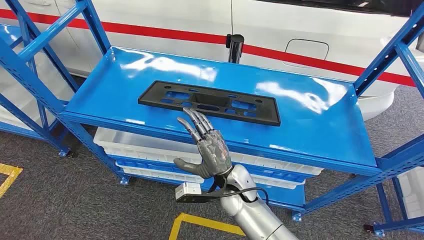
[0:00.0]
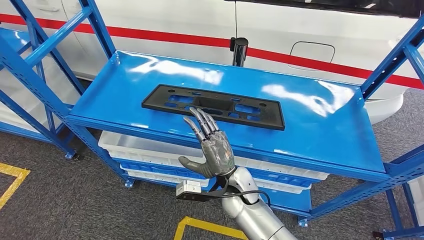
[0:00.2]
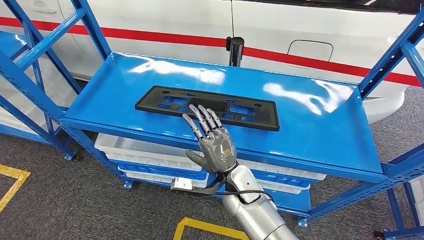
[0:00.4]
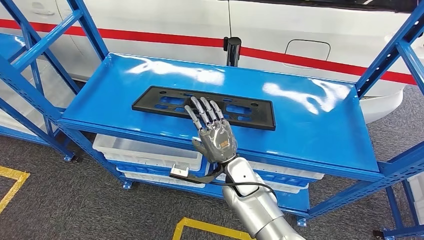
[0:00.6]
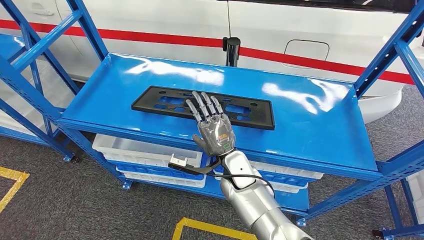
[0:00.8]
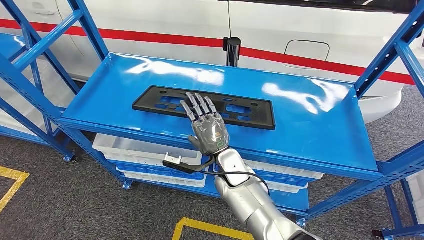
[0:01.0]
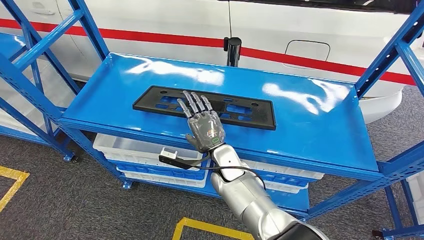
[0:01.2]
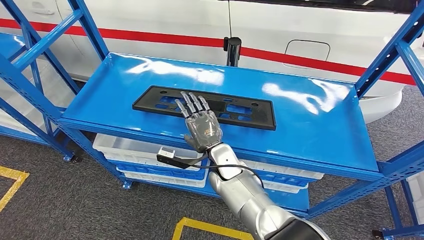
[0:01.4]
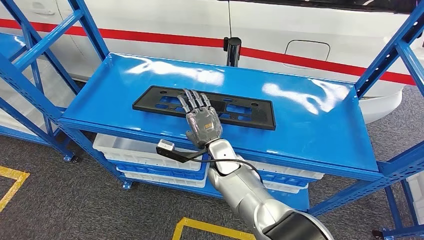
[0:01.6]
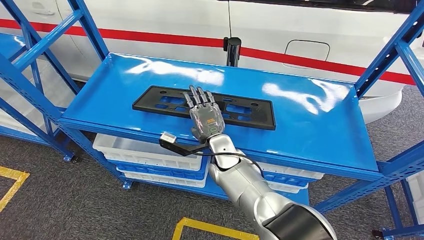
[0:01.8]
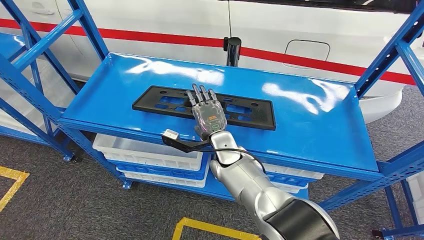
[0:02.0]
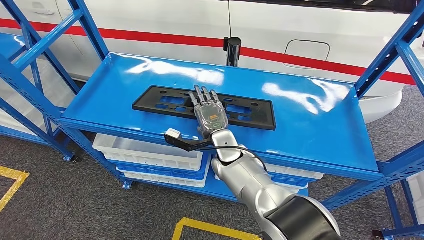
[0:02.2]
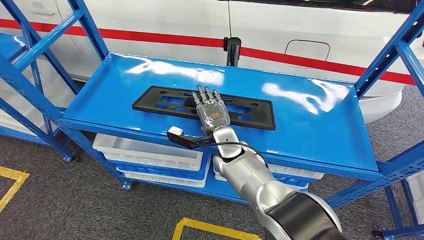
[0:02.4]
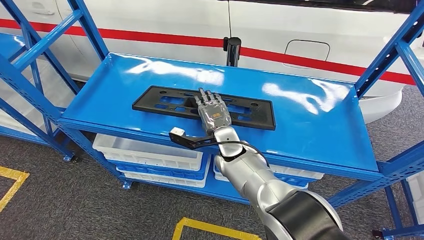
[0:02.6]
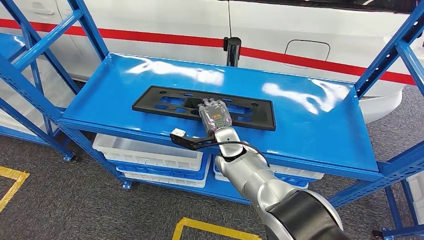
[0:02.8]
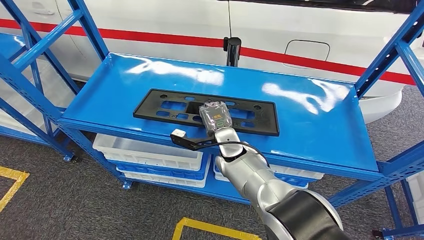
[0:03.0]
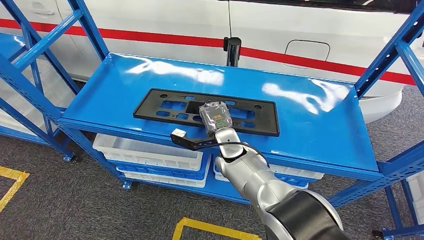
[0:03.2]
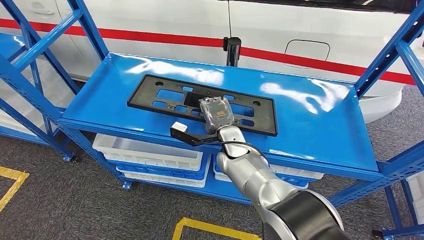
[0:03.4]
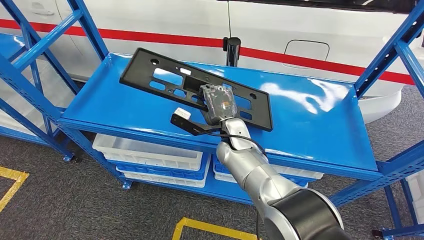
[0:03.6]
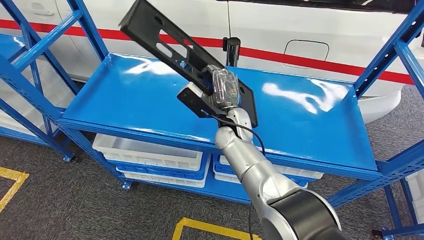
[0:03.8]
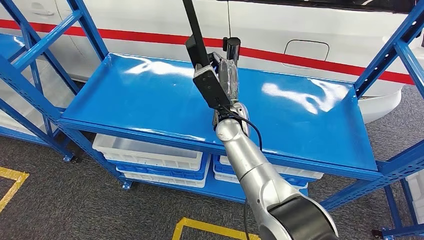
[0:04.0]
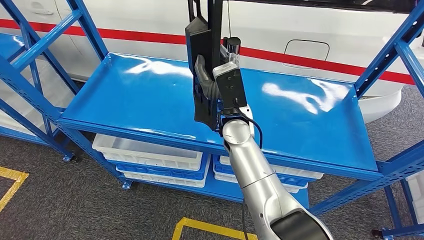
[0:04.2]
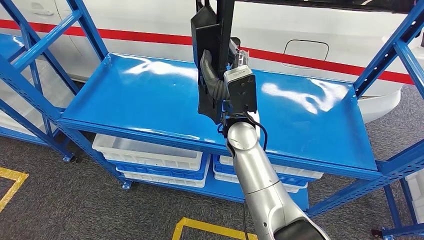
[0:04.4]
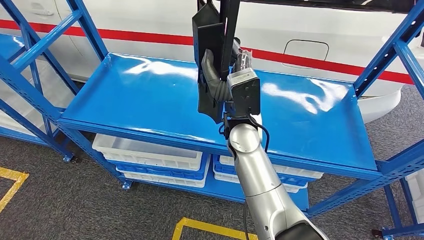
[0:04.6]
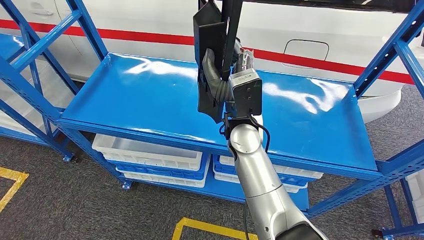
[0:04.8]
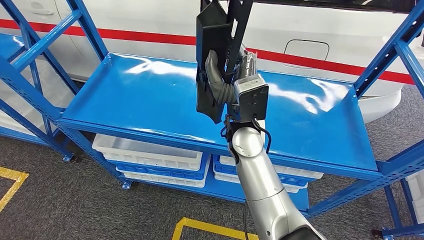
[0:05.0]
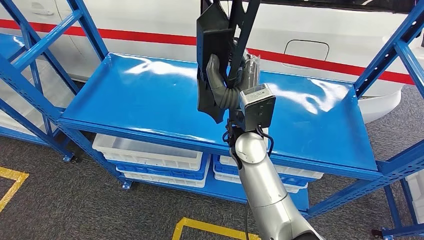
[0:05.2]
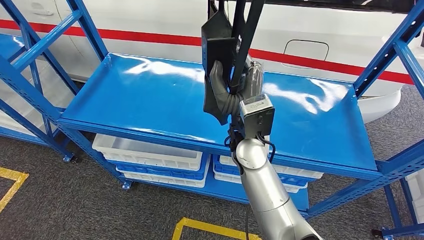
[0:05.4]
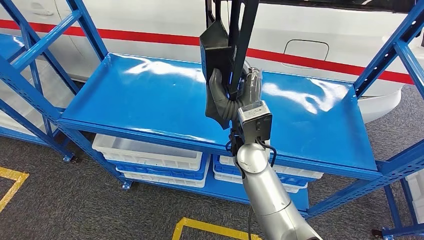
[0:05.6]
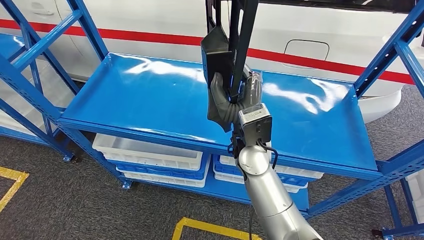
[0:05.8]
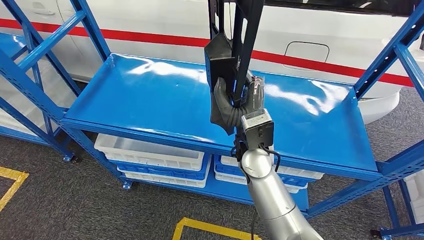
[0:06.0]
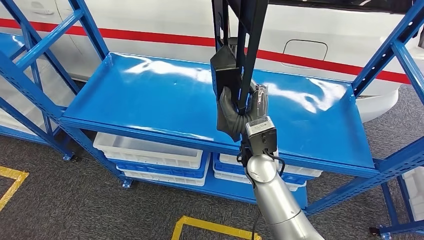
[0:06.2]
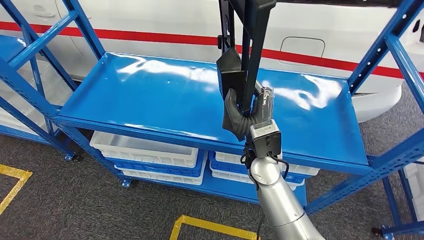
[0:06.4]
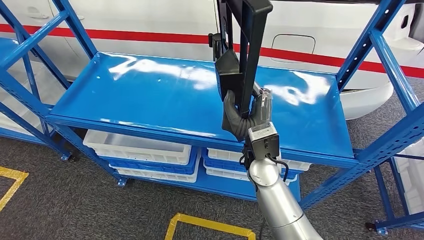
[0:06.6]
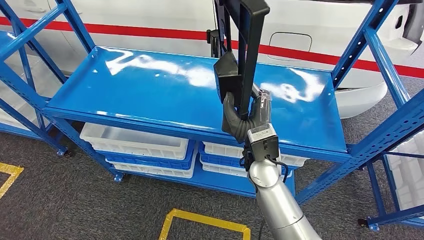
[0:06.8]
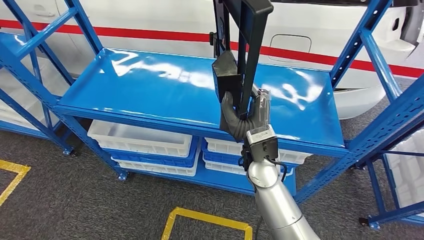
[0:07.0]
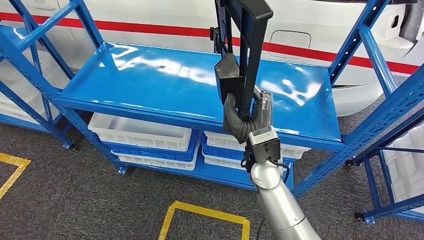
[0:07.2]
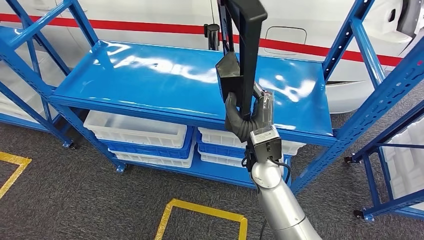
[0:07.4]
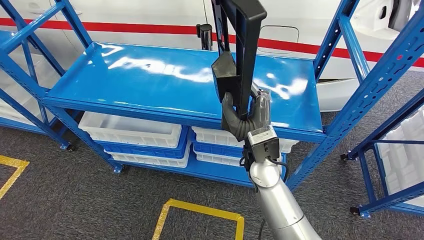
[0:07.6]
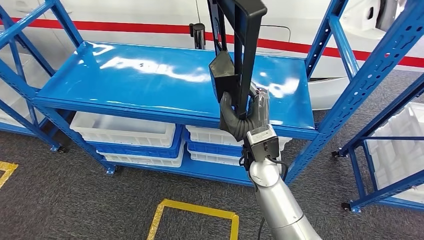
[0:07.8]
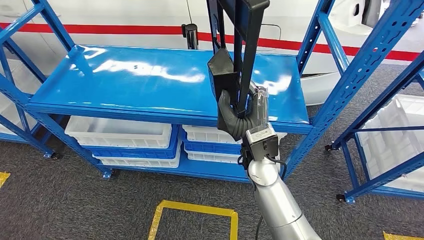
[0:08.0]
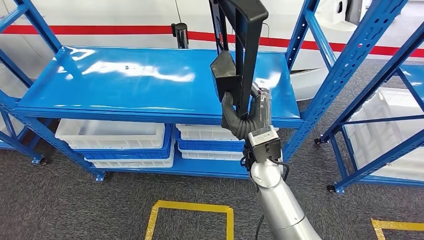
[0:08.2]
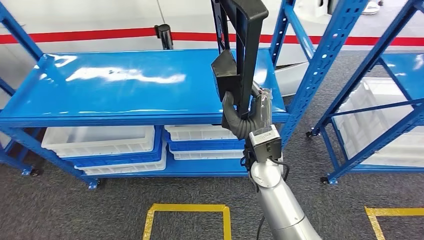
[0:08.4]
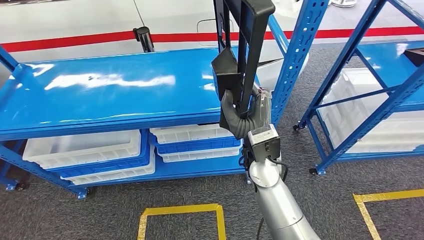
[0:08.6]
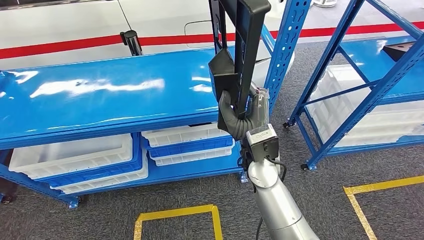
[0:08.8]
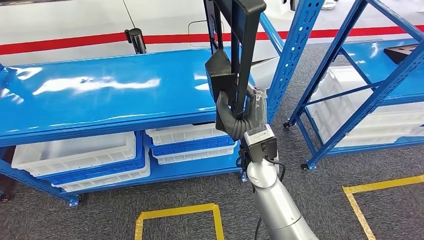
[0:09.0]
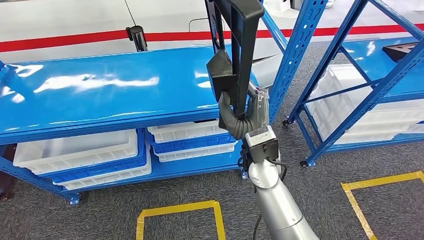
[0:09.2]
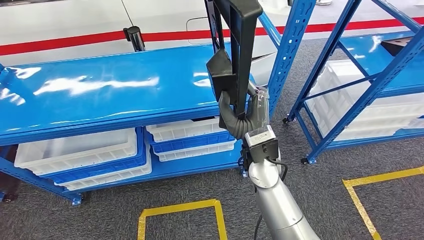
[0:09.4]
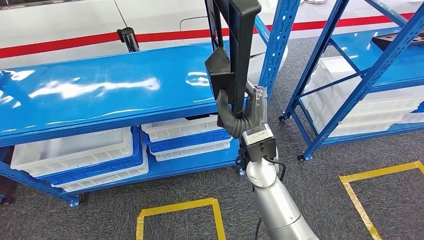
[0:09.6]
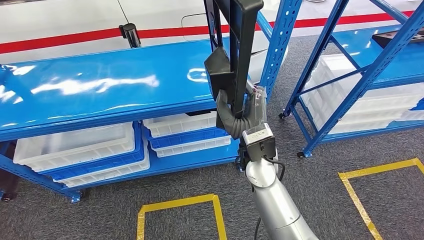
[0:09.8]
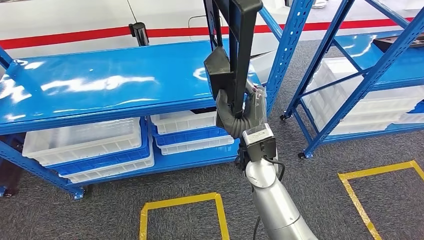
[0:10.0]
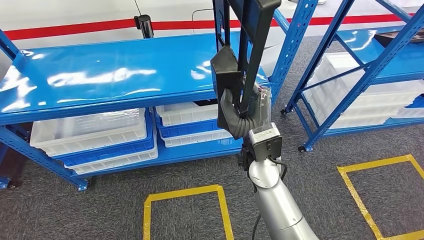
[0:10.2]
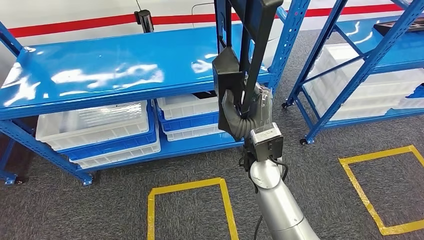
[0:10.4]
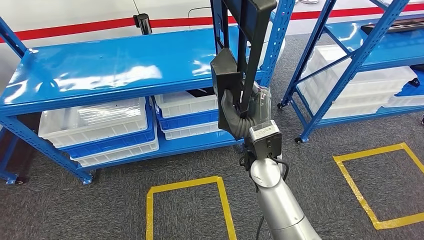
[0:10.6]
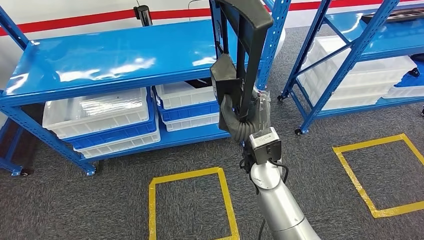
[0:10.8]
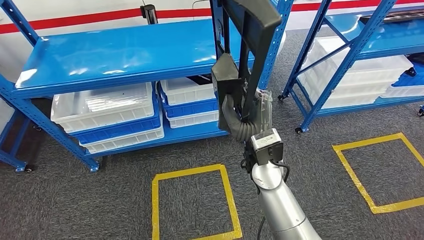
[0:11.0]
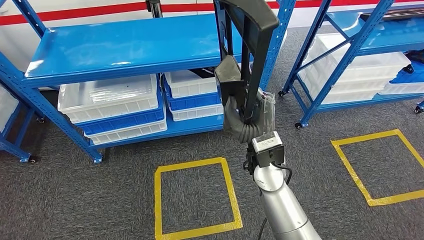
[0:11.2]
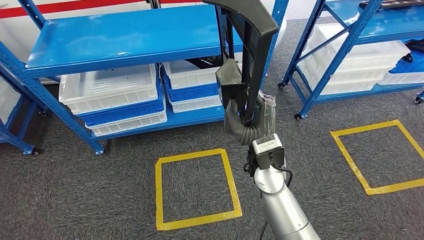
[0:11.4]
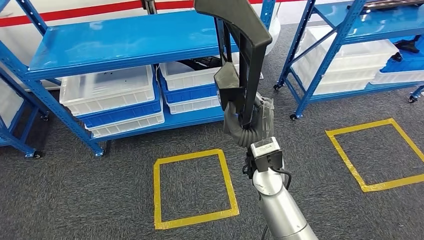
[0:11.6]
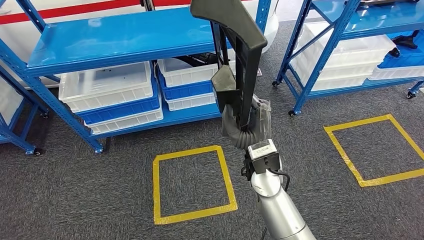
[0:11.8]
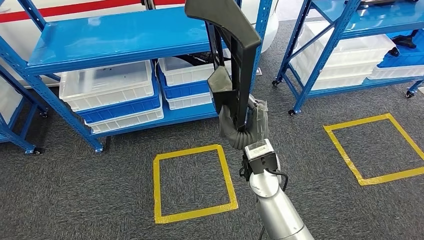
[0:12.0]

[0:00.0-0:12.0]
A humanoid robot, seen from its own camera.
Step, 0:00.0 to 0:04.4: Pick up the large material from the shelf.
0:03.0 to 0:04.4: The right hand shifts some 15 cm upward.
0:04.4 to 0:06.0: The right hand ends up approximately 5 cm from where it was.

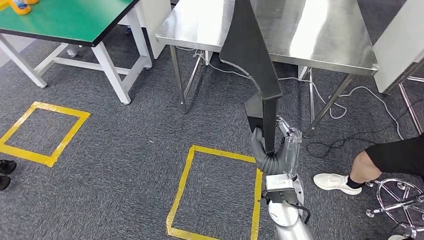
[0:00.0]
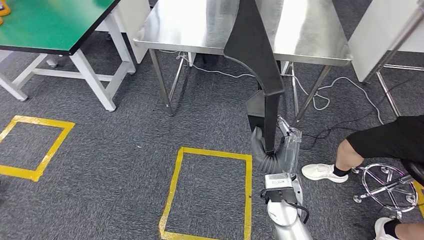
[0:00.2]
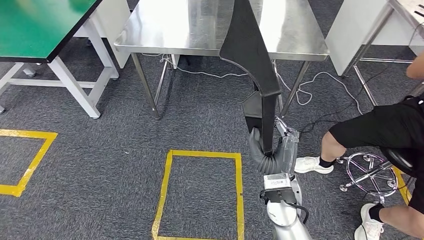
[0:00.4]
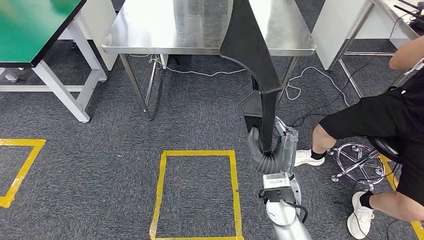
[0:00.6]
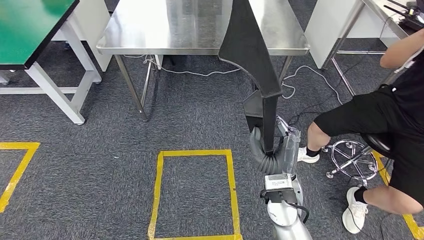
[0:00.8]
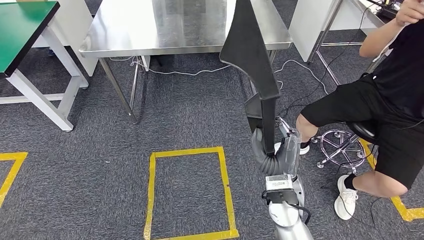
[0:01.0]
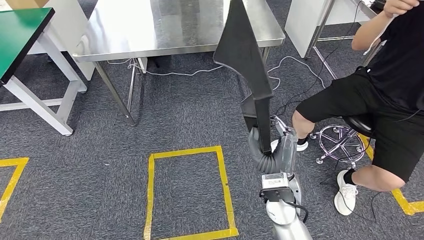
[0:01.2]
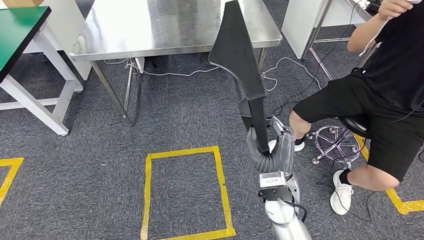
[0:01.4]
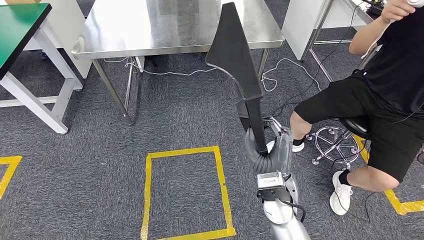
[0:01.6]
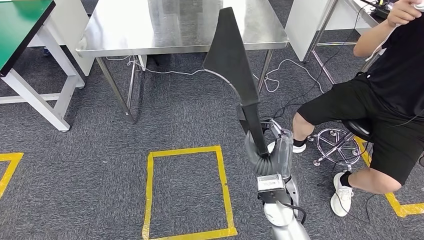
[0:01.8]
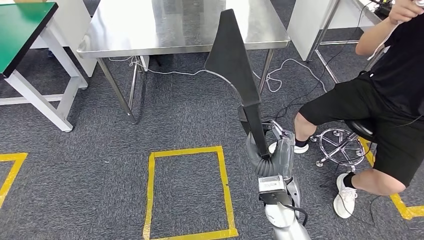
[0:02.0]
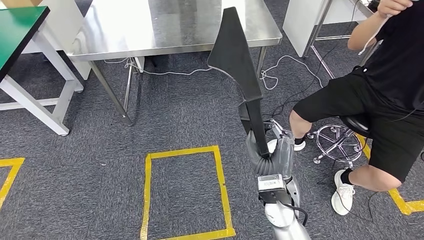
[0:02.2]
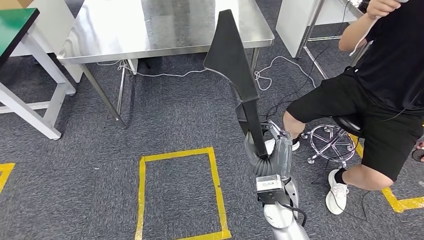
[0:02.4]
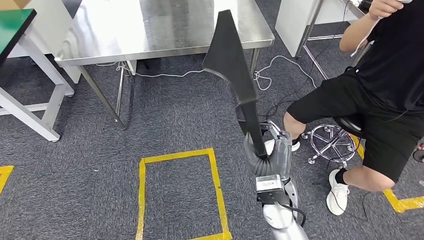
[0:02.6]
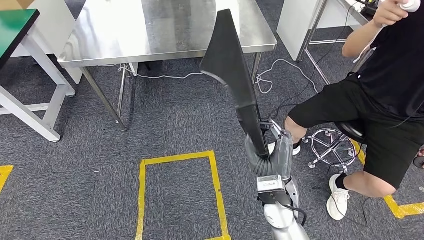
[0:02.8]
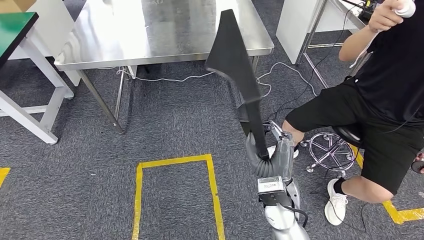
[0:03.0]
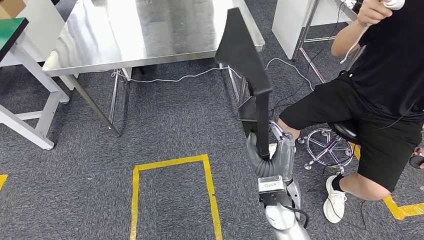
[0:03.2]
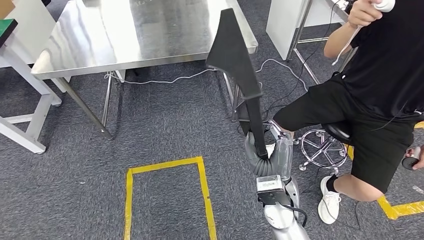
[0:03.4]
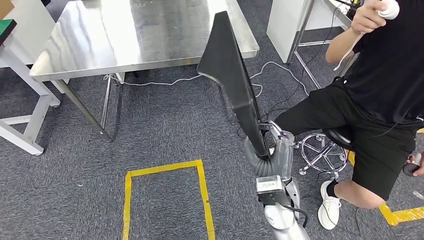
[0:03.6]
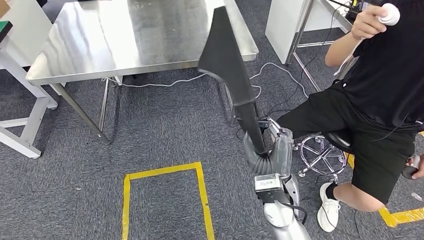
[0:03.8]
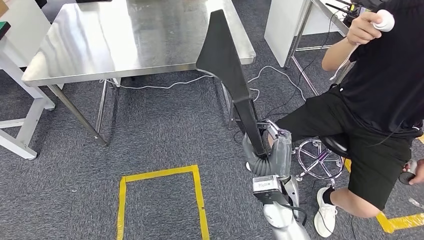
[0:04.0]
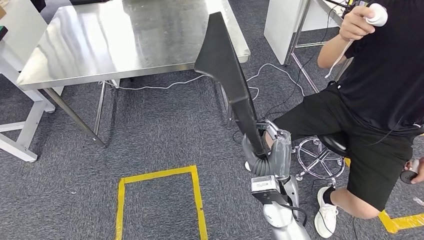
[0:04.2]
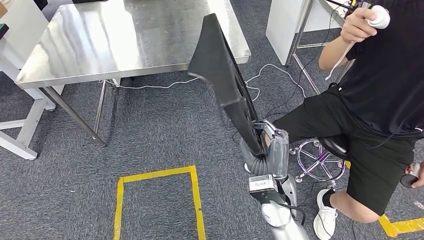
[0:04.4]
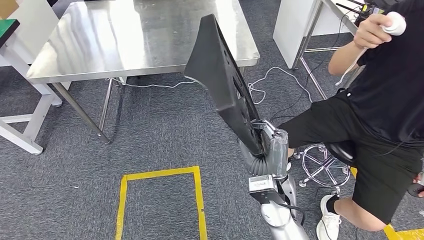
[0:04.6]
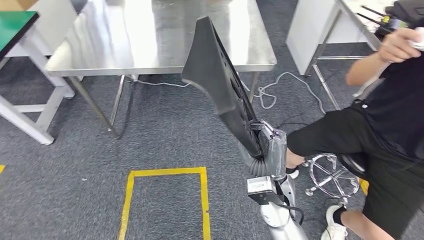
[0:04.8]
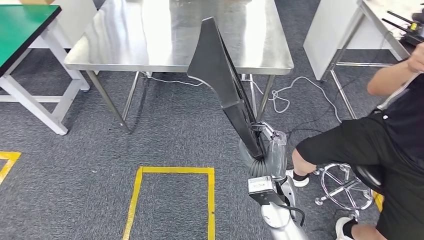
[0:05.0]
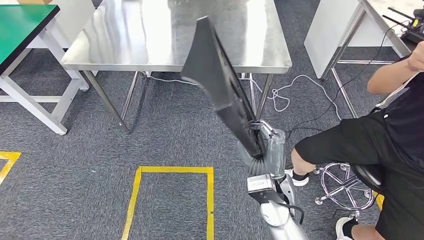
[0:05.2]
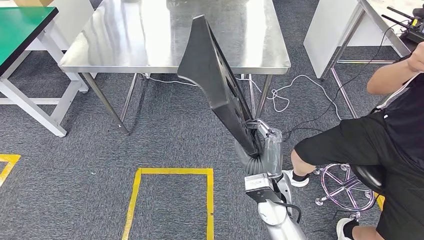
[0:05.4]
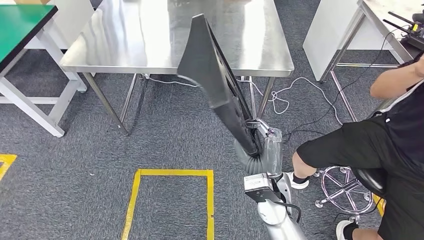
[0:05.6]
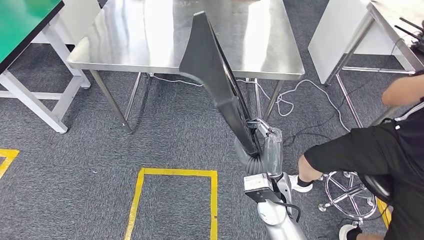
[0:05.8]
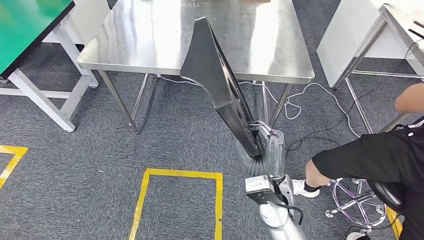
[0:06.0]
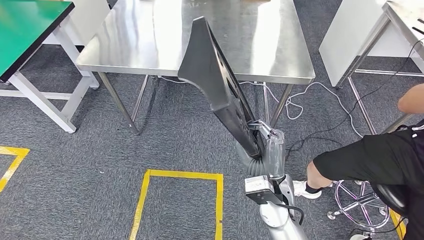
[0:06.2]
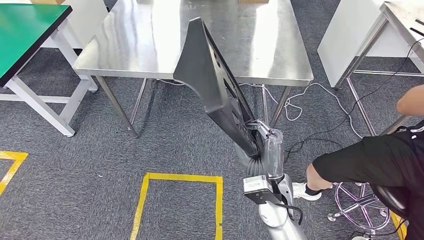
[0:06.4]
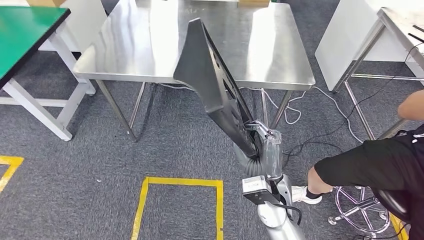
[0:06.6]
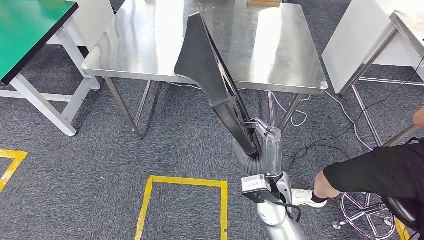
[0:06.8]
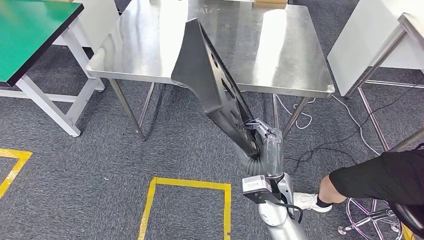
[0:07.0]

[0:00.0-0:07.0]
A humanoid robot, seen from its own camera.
Step, 0:00.0 to 0:02.0: Move the large material to the workbench.
